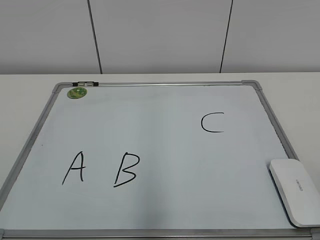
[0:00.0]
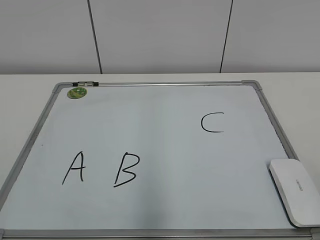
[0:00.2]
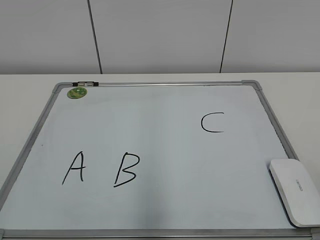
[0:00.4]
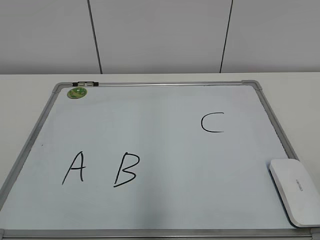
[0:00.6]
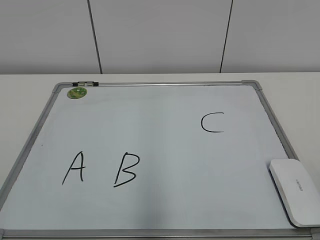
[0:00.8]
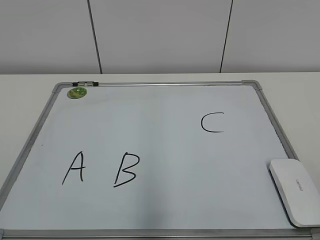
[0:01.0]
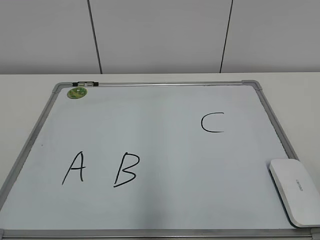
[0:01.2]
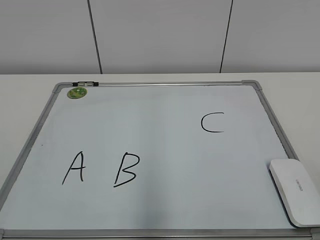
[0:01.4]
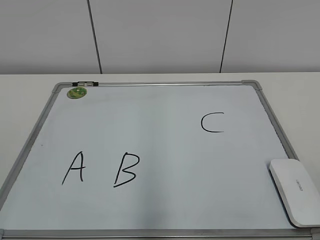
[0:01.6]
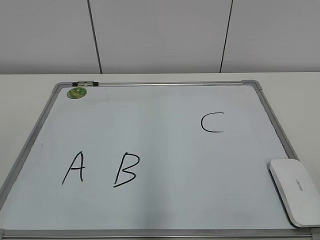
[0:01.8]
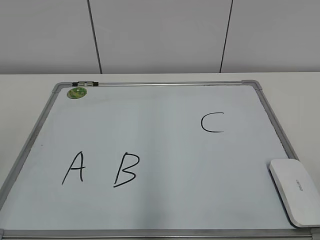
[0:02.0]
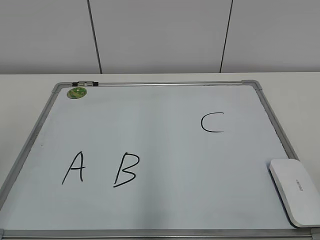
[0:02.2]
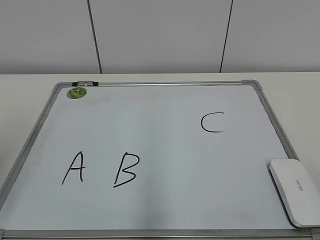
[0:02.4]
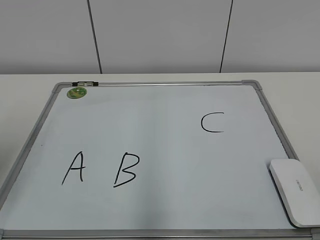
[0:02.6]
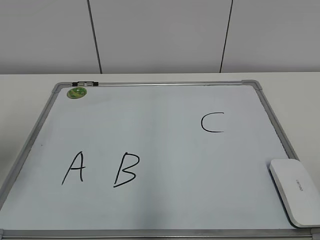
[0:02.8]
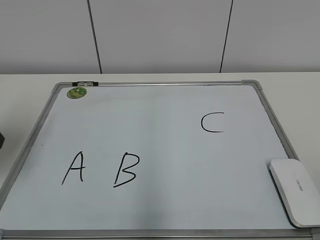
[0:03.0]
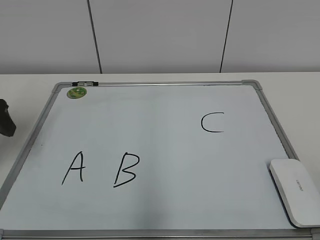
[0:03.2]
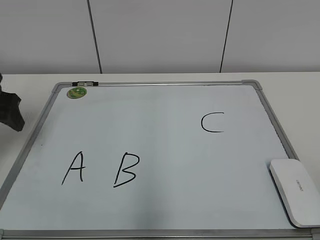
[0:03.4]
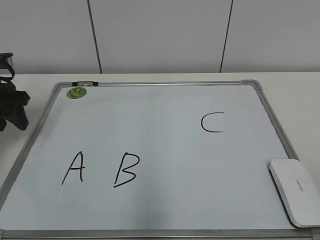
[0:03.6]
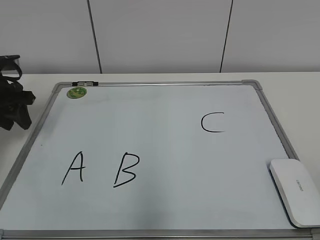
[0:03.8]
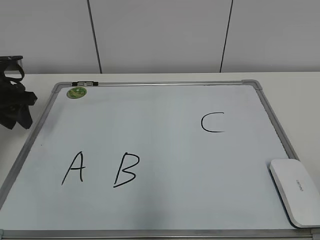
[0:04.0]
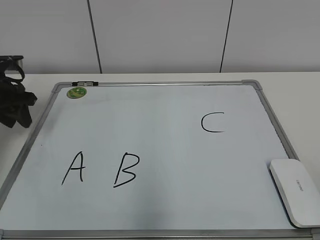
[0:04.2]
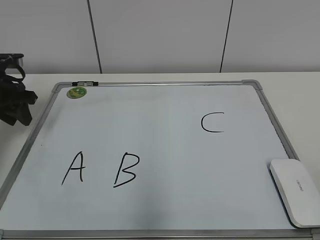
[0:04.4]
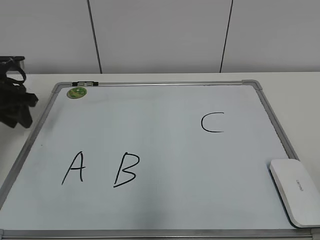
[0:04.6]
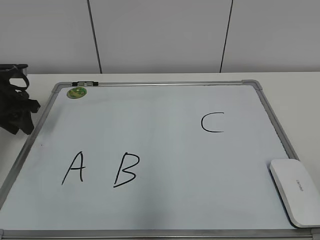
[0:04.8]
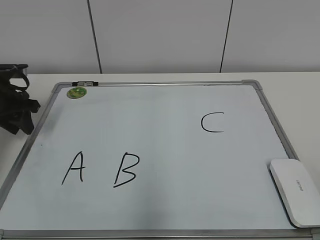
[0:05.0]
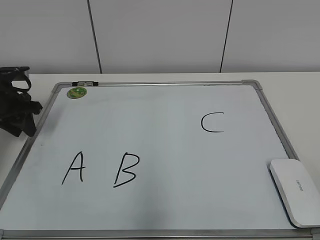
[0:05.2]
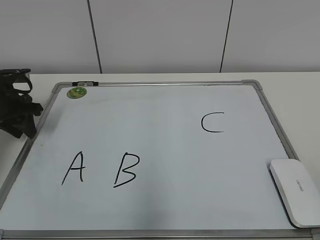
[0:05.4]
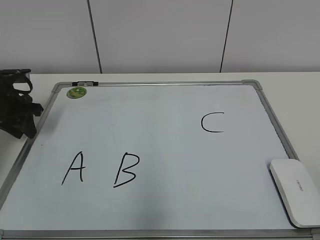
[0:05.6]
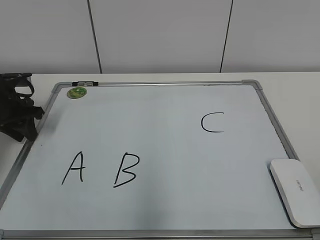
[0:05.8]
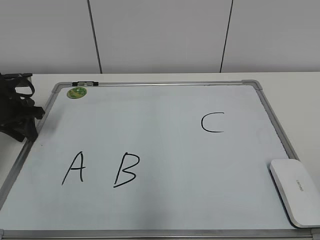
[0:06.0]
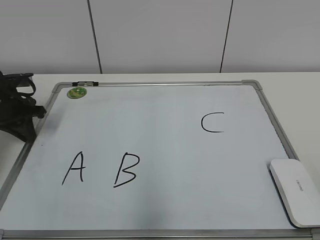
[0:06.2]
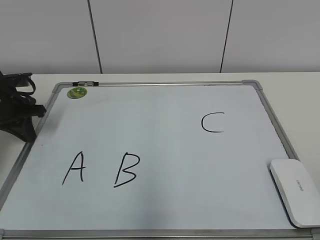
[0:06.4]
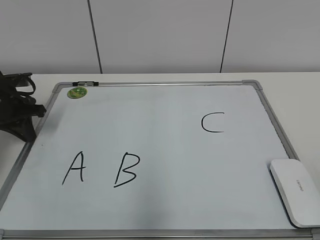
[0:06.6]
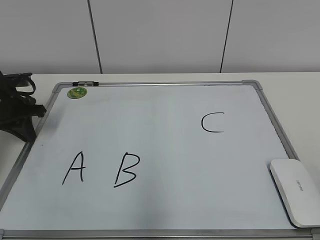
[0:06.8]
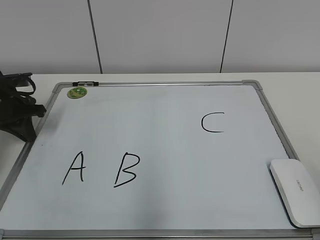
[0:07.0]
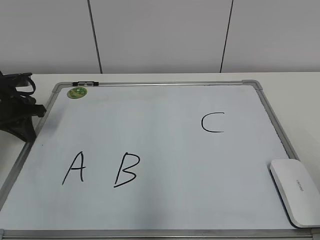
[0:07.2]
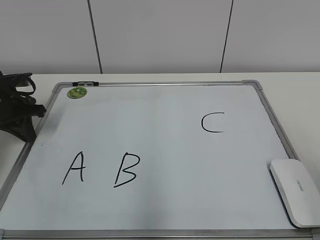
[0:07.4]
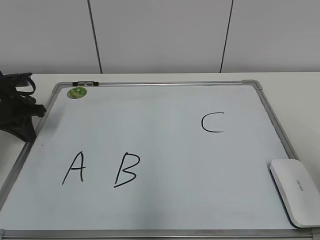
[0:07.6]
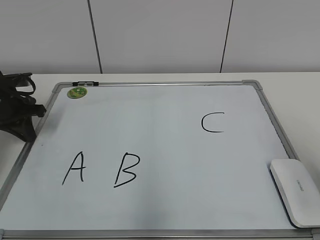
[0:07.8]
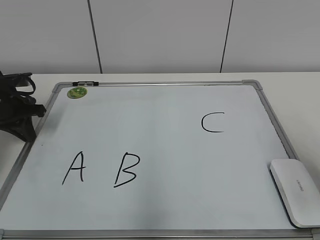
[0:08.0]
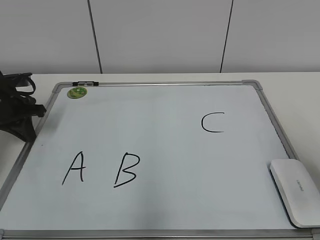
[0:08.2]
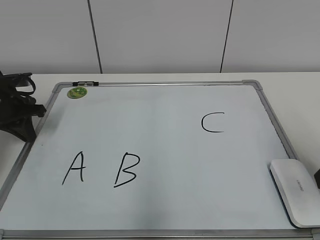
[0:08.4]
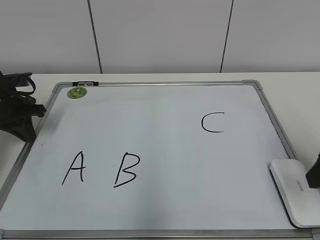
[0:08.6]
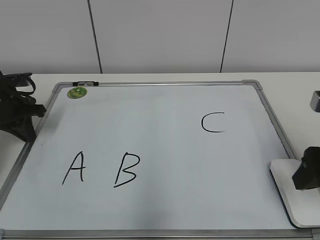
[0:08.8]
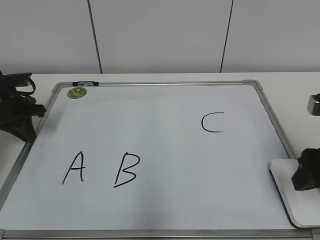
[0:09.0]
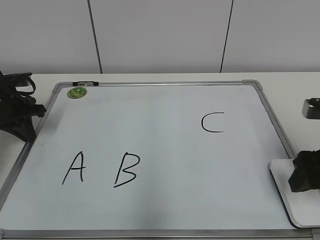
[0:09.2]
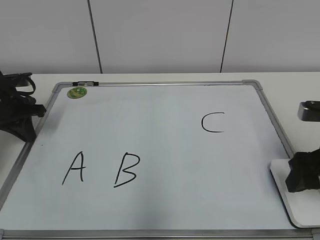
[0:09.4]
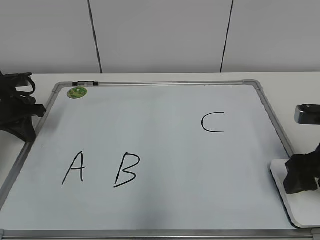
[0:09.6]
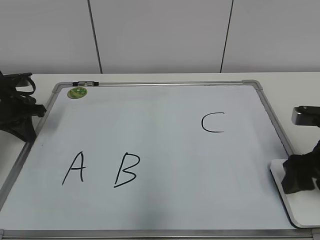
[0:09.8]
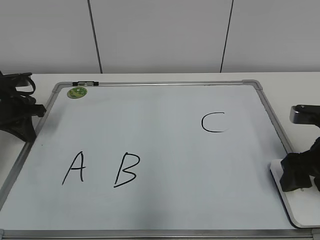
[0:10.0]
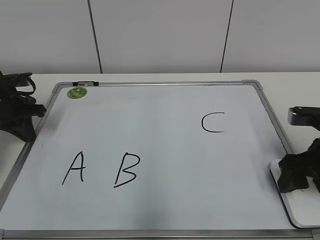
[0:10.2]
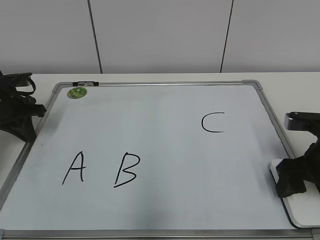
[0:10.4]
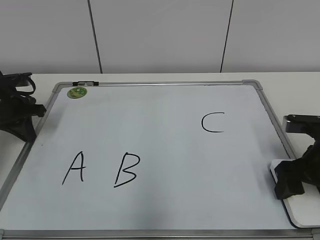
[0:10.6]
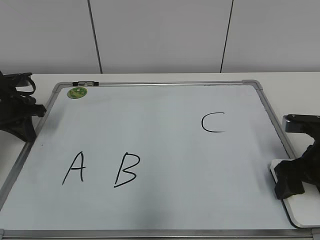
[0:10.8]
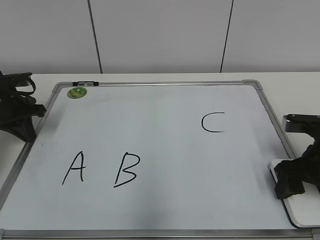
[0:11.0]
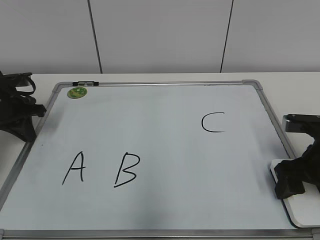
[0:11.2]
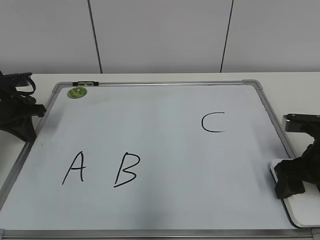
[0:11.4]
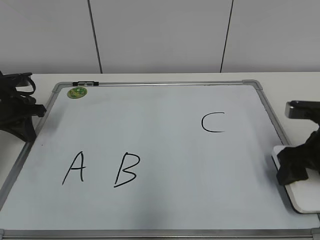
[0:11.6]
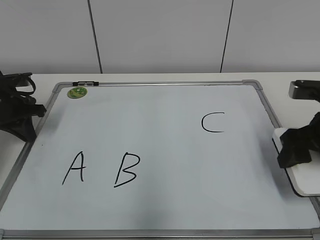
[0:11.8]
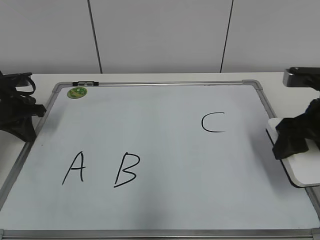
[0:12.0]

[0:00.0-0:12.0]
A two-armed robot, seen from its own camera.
Task of the whole recording: pick up the eraser on the blackboard and erase the letter "B".
Step, 0:00.0 to 0:06.0: Hold the drawing board steady with your left hand.
Step, 0:06.4 to 0:11.4: Grab the eraser with your right hand.
0:01.6 to 0:03.0: The left gripper travels forward by some 25 cm.
0:03.0 to 0:04.4: The left gripper shifts some 15 cm forward, and closes its fingers.
0:04.4 to 0:06.0: There are only small adjustments of the grippers.
0:07.6 to 0:09.0: The right gripper shifts some 15 cm forward and downward.
0:09.0 to 0:10.4: The right gripper moves downward, some 5 cm.
0:10.4 to 0:12.0: The right gripper travels upward by roughly 5 cm.

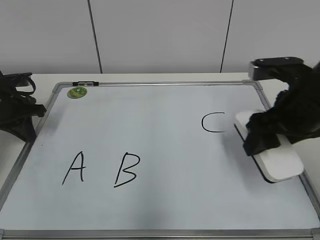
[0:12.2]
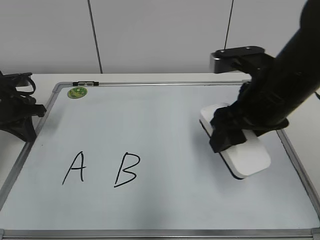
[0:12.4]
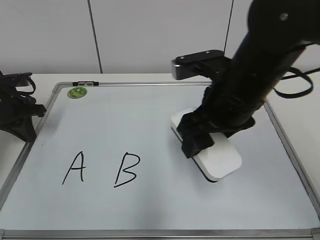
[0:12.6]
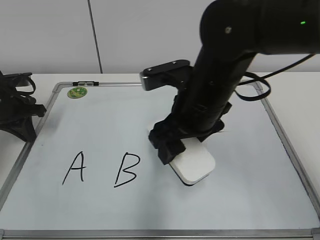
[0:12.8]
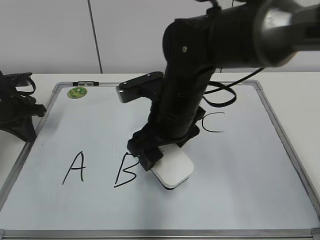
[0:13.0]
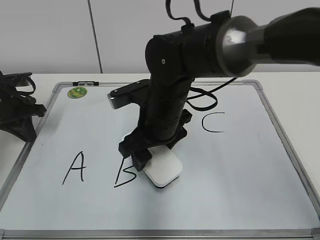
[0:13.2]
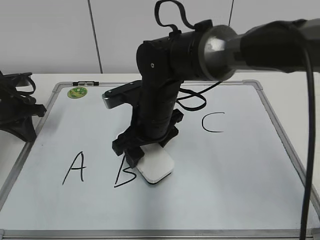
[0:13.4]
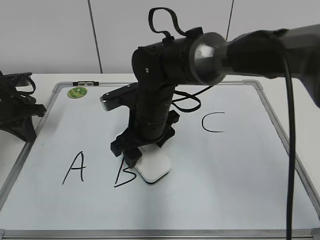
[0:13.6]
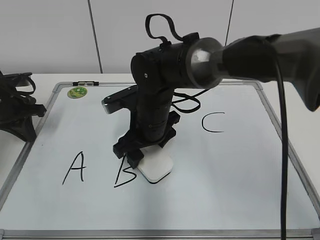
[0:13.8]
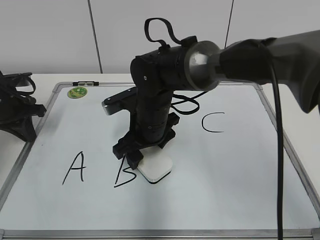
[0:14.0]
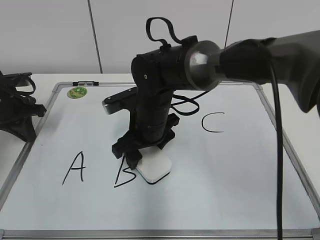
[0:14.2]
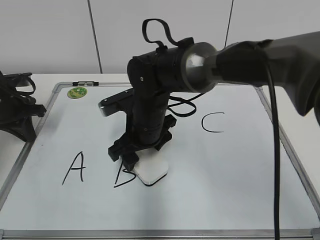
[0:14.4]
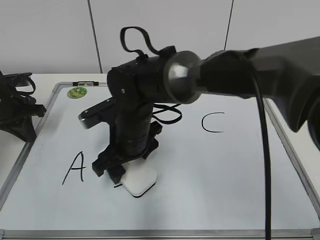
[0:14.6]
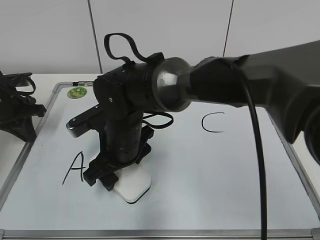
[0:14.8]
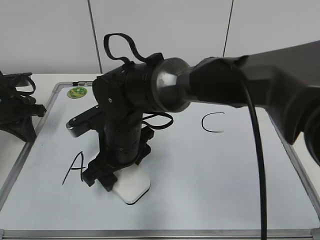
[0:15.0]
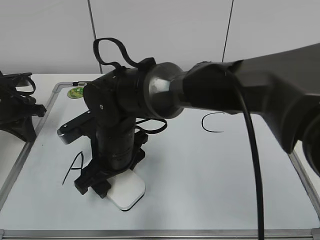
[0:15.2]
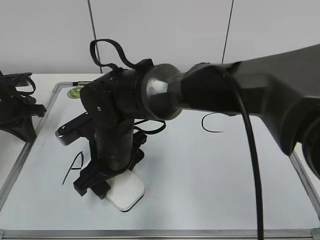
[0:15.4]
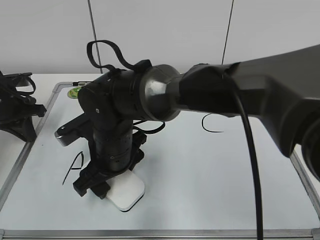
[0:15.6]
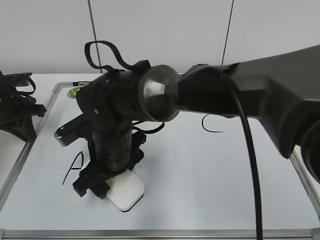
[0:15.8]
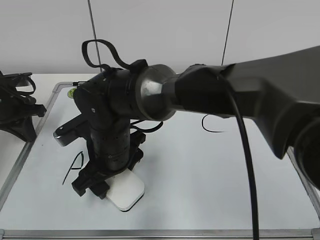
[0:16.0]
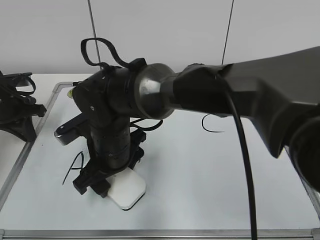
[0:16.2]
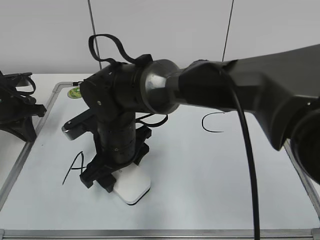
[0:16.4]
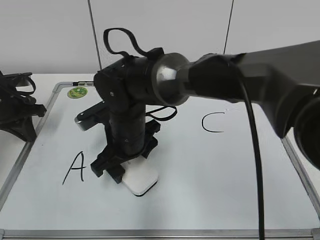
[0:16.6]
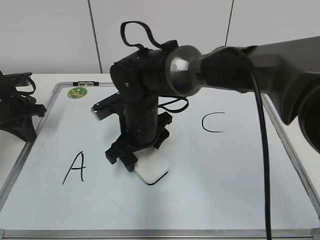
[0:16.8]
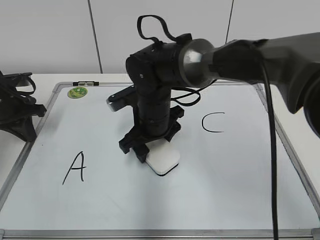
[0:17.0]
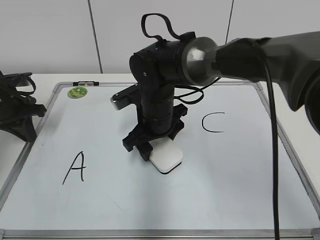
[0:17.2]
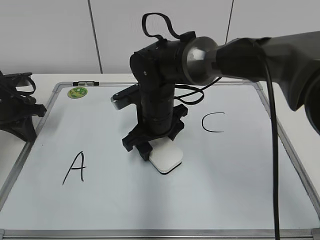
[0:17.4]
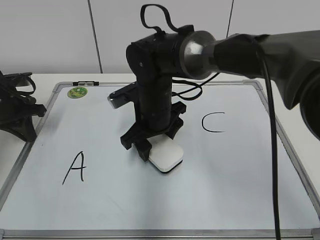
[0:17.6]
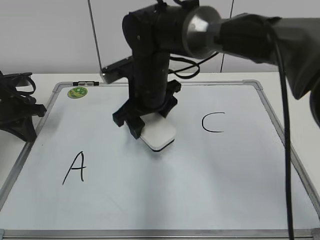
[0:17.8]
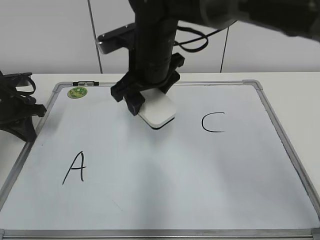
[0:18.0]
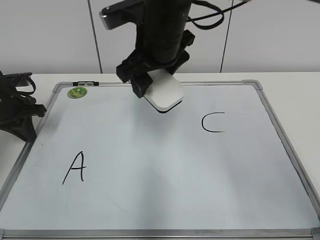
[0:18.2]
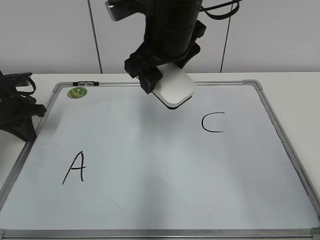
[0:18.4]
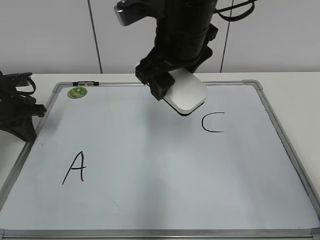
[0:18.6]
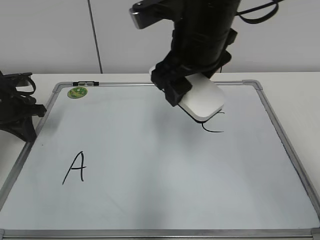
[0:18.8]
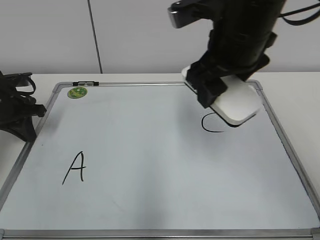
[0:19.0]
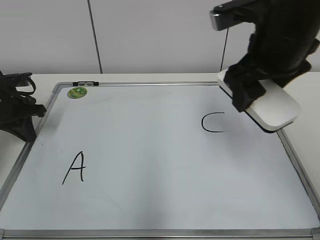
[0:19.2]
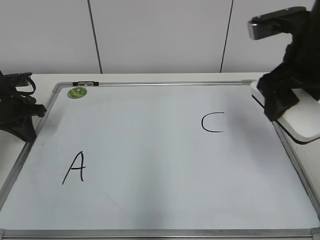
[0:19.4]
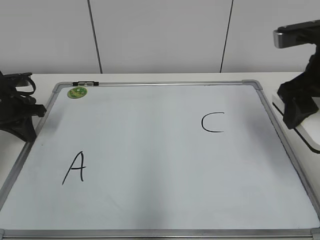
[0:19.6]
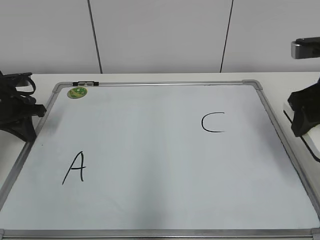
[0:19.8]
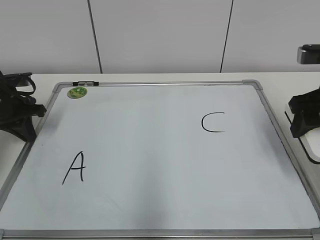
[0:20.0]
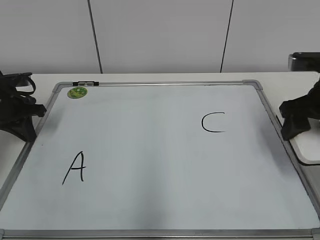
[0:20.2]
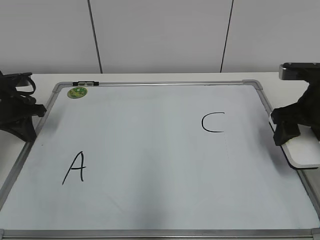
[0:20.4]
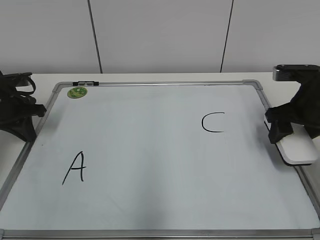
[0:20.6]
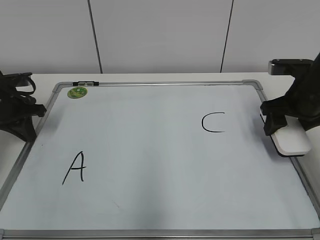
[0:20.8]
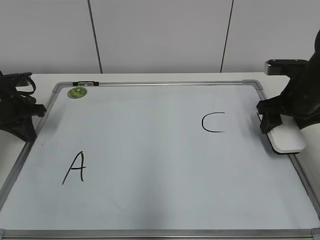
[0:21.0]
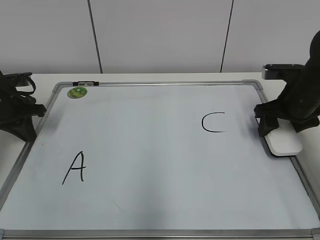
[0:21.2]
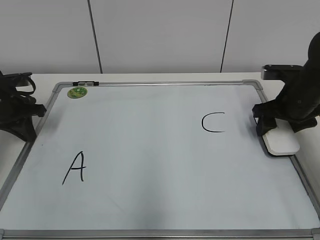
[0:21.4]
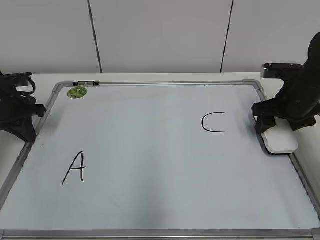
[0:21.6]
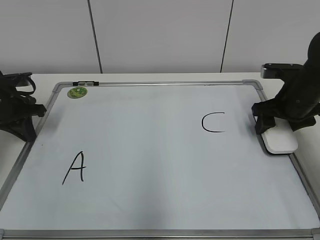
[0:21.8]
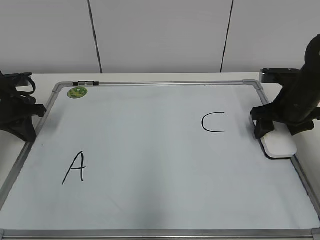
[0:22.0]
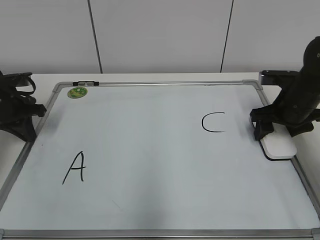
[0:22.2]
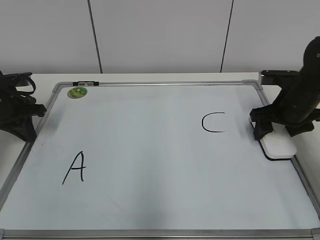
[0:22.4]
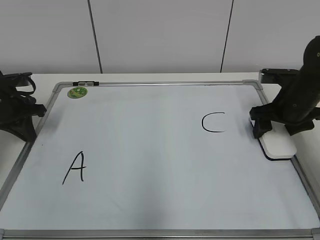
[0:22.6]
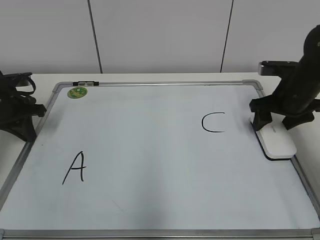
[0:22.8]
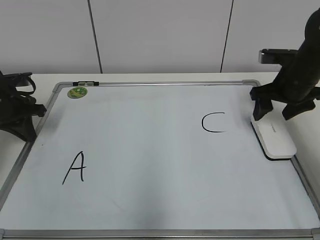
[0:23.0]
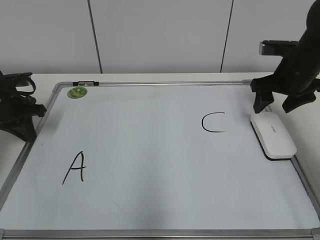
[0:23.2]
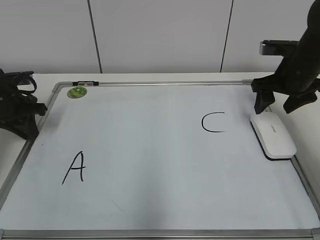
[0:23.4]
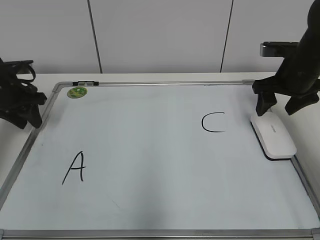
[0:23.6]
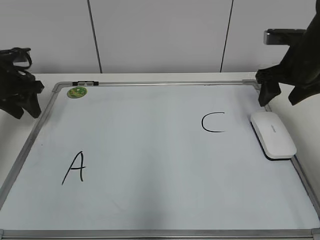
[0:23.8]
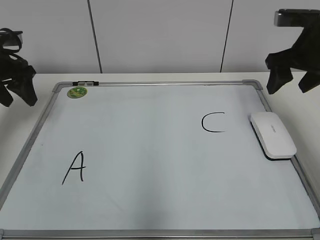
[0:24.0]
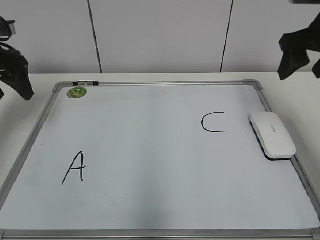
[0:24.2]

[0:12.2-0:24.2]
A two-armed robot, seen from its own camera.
Task of the whole recording: pick up the eraser on the blackboard and erase the letter "B".
Step, 0:12.2 to 0:17.4: Erase the letter B with your right hand.
Step, 0:17.6 to 0:22.2: Put down the eraser with your right hand.
0:12.2 to 0:13.8: The right gripper moves to the left, roughly 20 cm.
0:13.8 to 0:15.2: The right gripper is displaced to the left and backward by about 10 cm.
0:15.2 to 0:16.6: The grippers make only small movements.
0:16.6 to 0:18.2: The right gripper travels upward and to the right by some 15 cm.
0:18.2 to 0:19.8: The right gripper is displaced to the right by some 25 cm.
0:19.8 to 0:21.2: The right gripper heads downward and forward, covering approximately 15 cm.
0:21.2 to 0:22.6: The grippers make only small movements.
0:22.6 to 0:24.2: Both grippers move upward, about 15 cm. The left gripper opens.
